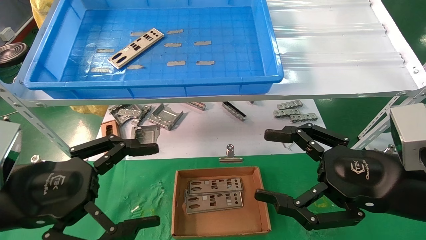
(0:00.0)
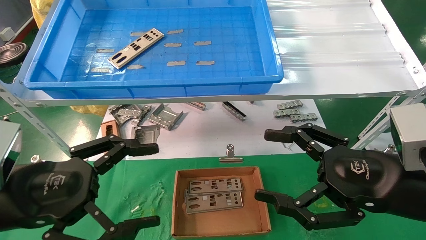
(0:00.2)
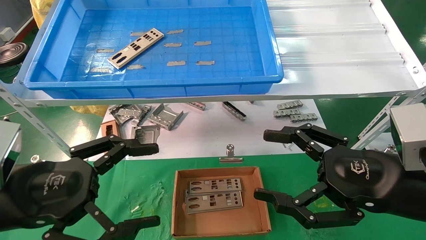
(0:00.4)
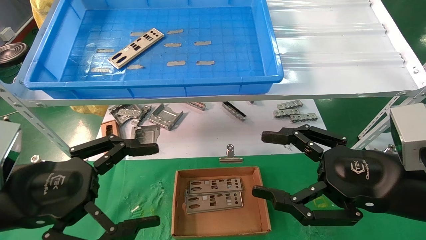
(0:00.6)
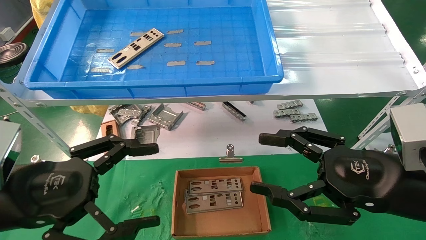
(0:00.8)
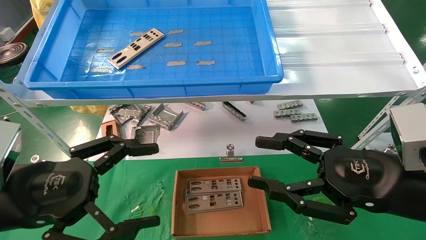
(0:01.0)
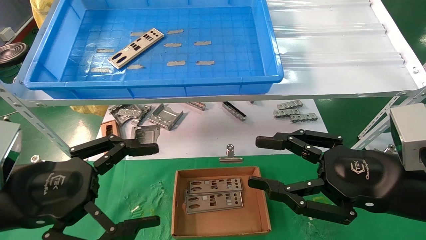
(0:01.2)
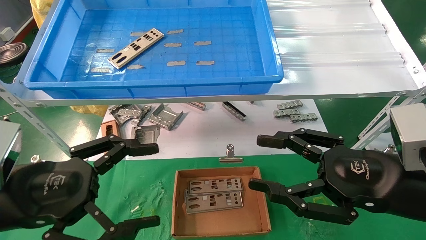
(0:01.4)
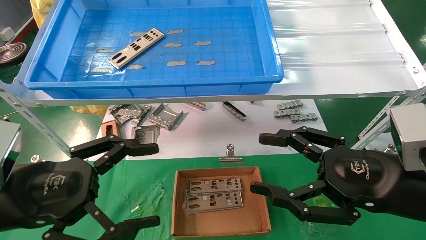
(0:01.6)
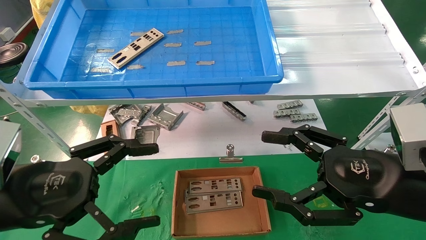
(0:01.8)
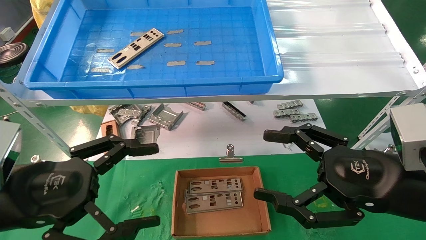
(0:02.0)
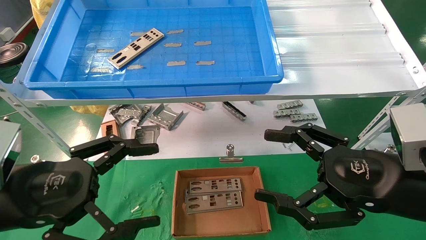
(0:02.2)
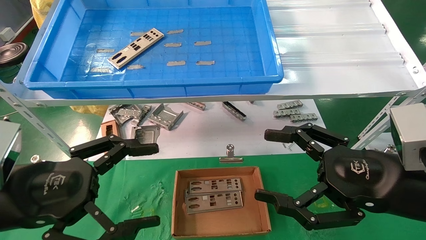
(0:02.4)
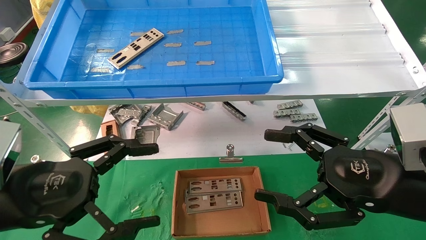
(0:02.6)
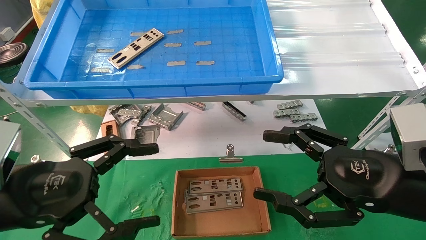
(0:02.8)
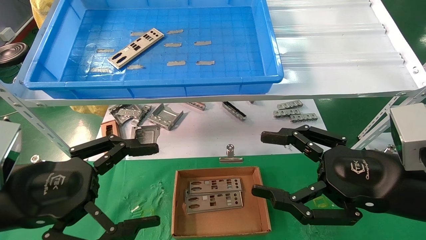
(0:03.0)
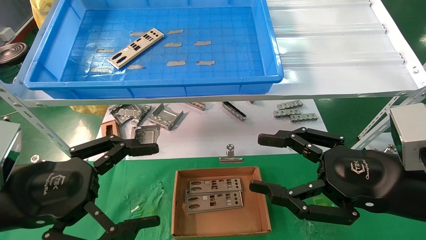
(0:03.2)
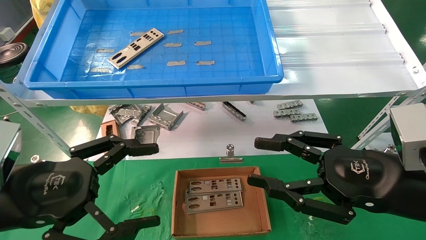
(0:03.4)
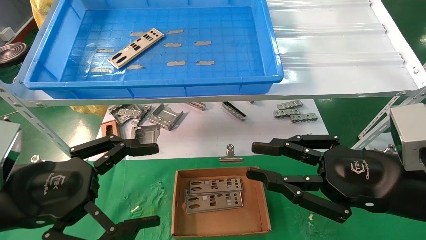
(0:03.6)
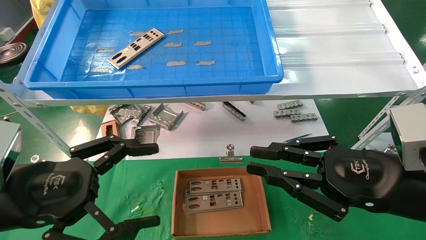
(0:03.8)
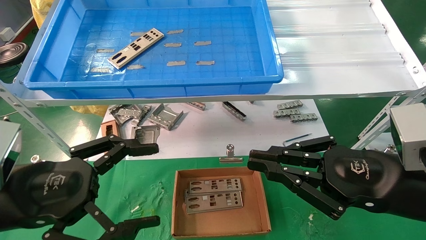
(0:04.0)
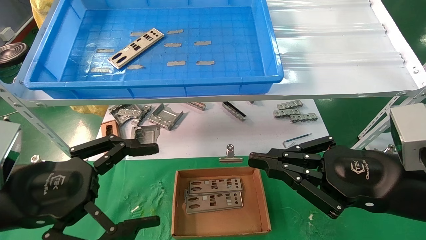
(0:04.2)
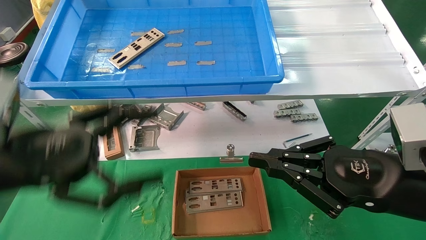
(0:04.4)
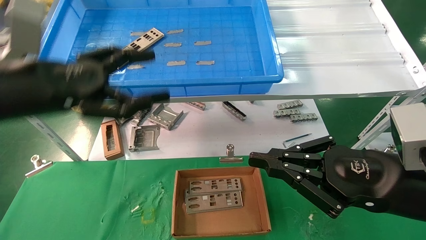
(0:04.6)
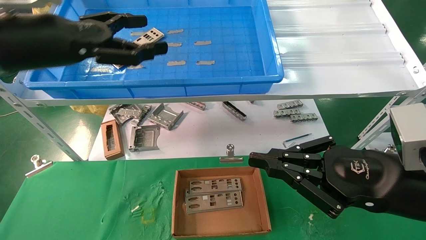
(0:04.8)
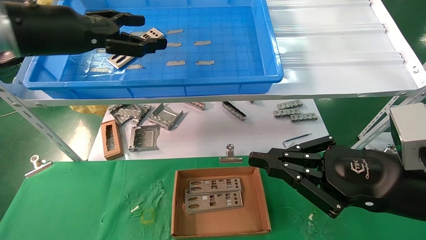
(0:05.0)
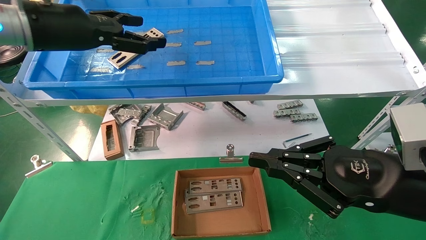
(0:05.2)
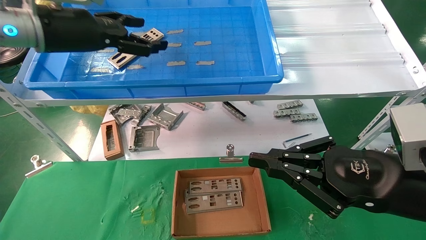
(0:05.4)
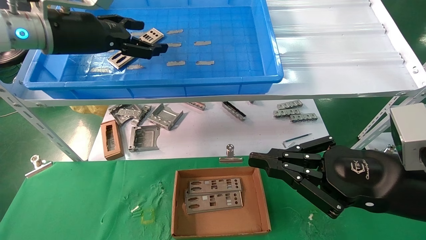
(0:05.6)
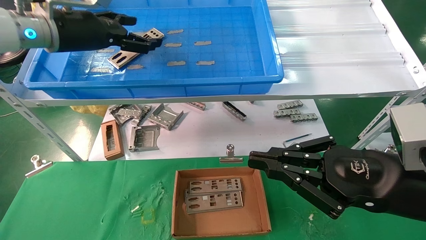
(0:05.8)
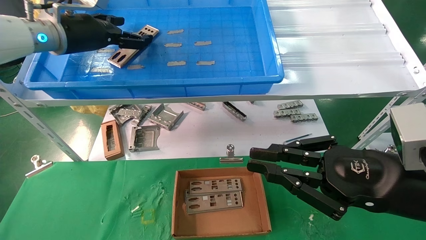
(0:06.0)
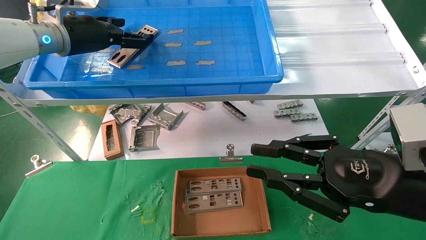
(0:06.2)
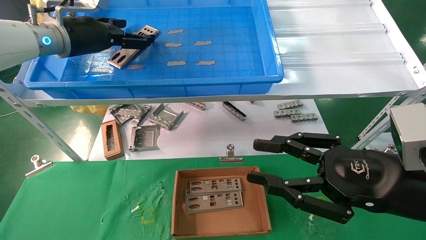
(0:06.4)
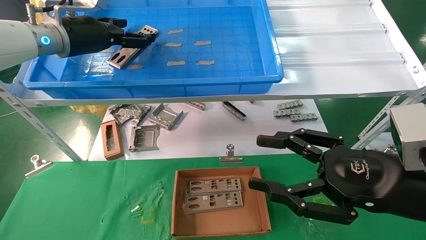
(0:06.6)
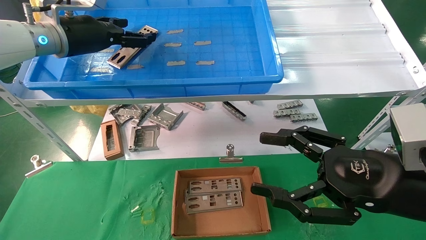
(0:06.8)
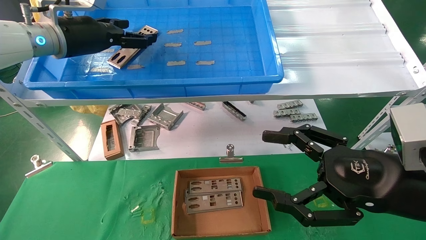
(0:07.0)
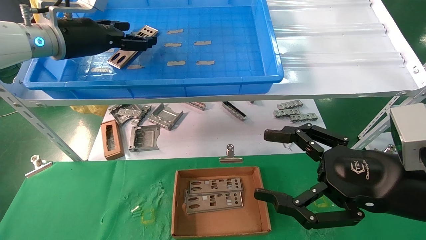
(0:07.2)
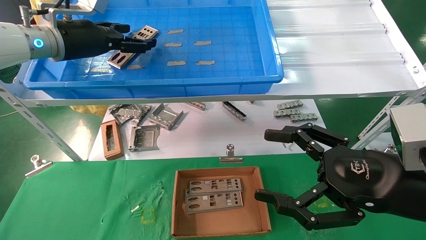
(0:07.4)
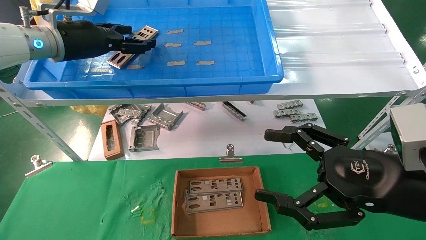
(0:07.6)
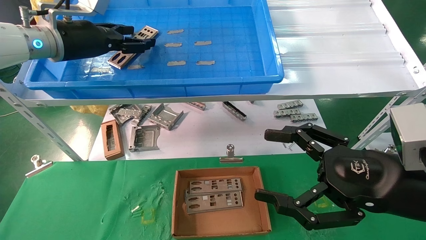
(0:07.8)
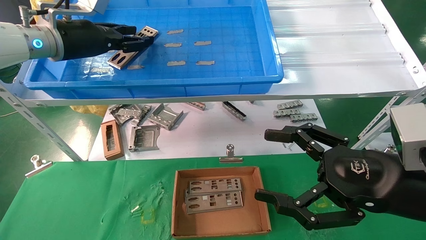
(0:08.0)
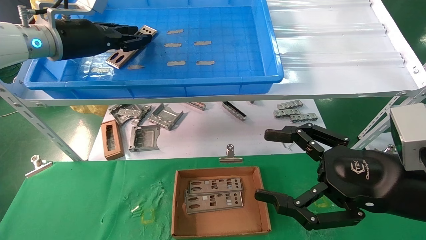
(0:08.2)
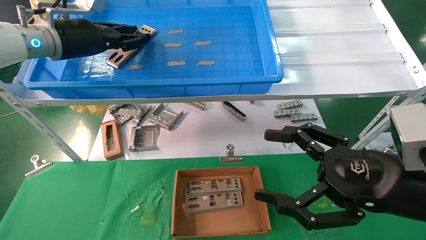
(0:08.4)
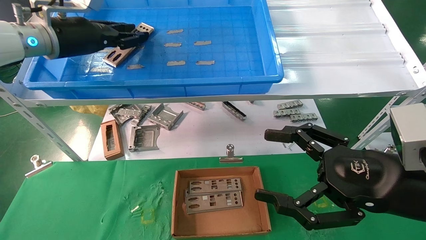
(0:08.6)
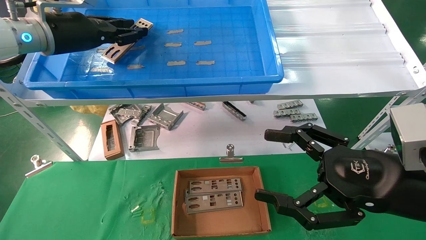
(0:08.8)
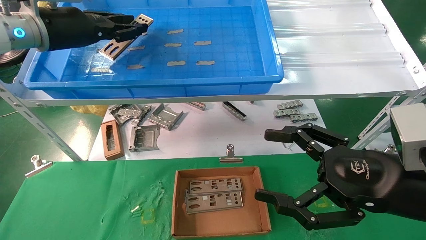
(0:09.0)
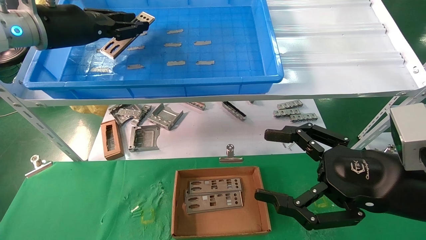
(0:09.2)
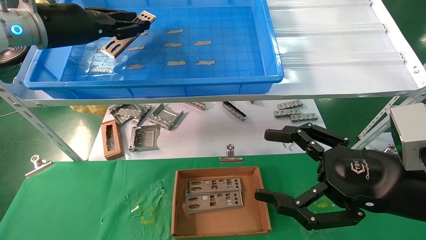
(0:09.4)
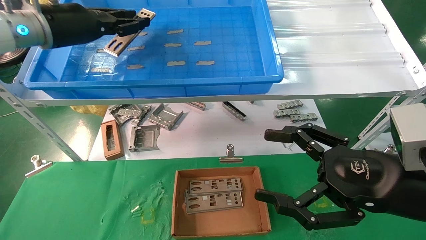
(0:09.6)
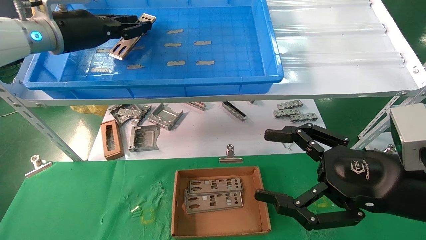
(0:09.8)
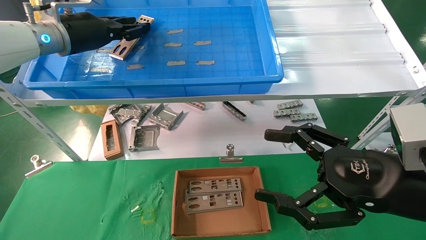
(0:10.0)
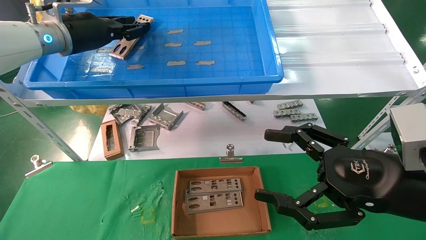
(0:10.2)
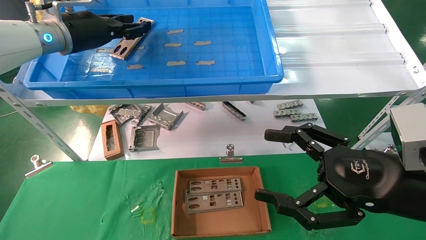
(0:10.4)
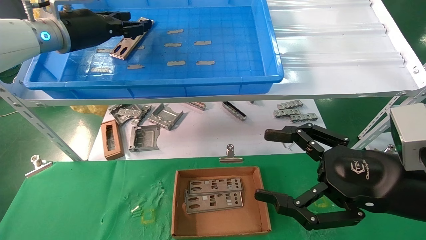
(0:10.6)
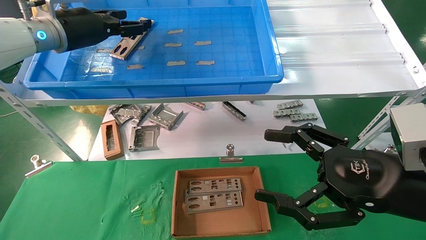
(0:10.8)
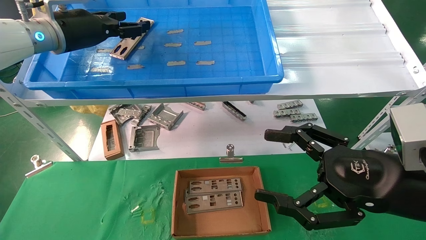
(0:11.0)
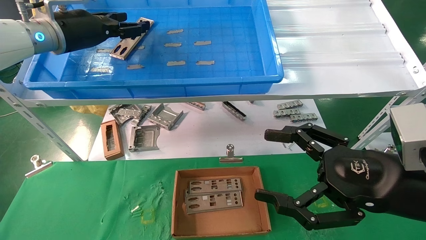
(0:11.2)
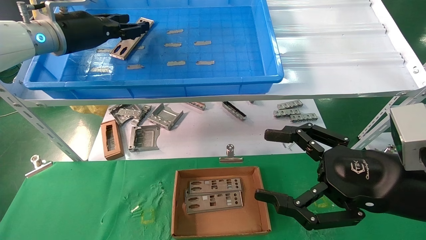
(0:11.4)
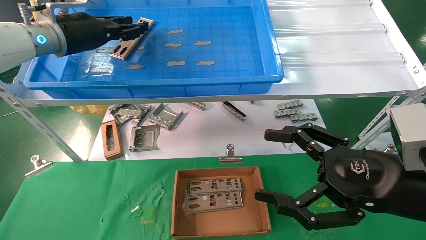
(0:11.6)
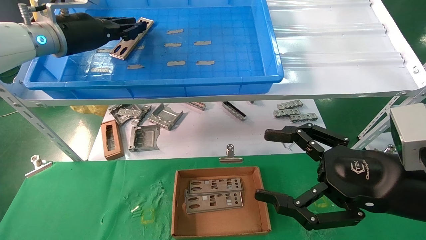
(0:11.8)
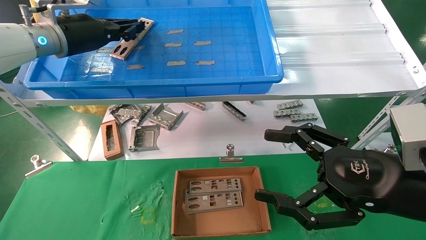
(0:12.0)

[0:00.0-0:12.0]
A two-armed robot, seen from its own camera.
Task of the whole recording: pick up the parts on the tray and put them in the cardboard box.
0:00.0 to 0:03.0: The two grippers keep their place.
0:03.0 to 0:04.4: The left gripper heads upward, covering roughly 5 cm. Meanwhile the right gripper closes up.
0:04.4 to 0:06.0: The left gripper is displaced forward and upward by some 25 cm.
0:06.0 to 0:07.6: The right gripper opens up.
0:07.6 to 0:09.0: The left gripper closes.
0:09.0 to 0:10.4: The grippers stay close to where they were, moving slightly.
0:10.4 to 0:12.0: The left gripper opens, then closes again.

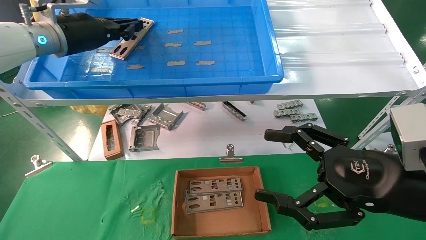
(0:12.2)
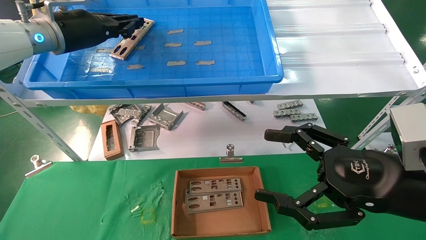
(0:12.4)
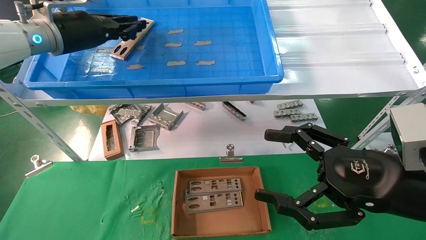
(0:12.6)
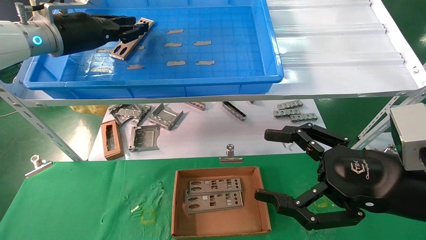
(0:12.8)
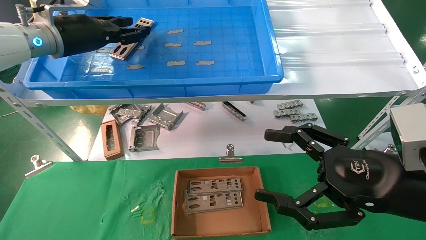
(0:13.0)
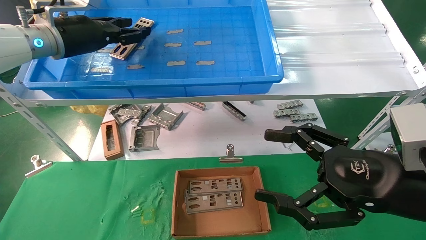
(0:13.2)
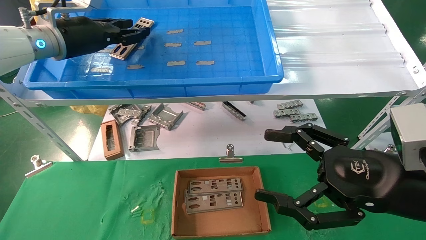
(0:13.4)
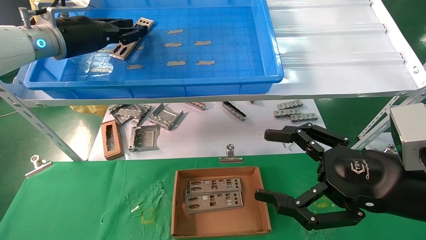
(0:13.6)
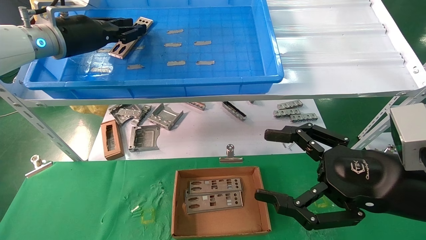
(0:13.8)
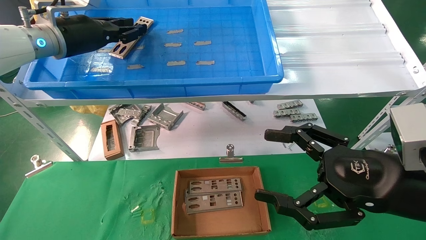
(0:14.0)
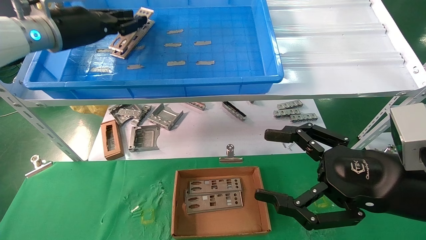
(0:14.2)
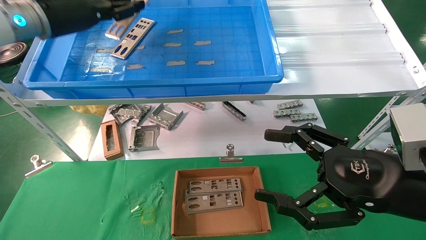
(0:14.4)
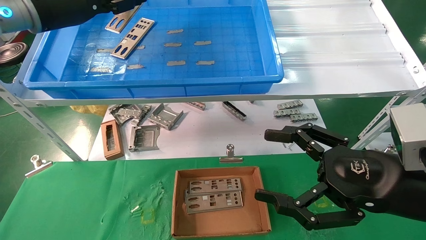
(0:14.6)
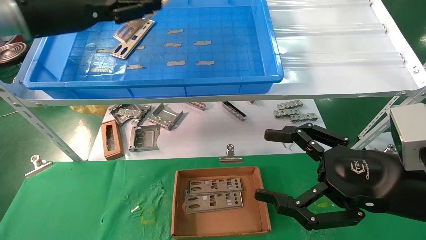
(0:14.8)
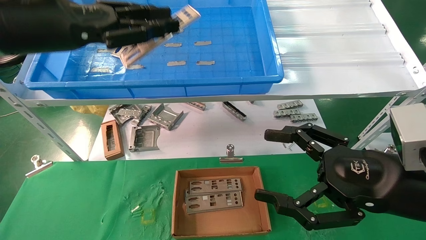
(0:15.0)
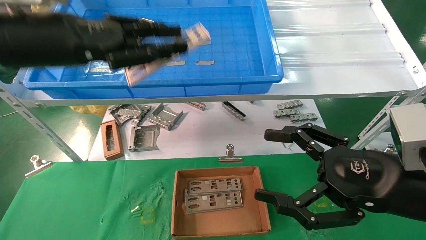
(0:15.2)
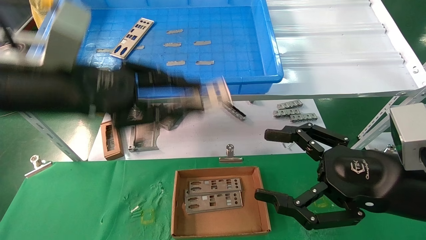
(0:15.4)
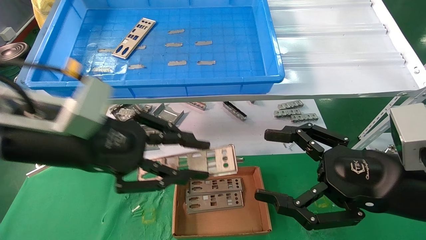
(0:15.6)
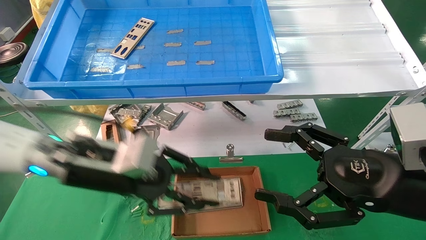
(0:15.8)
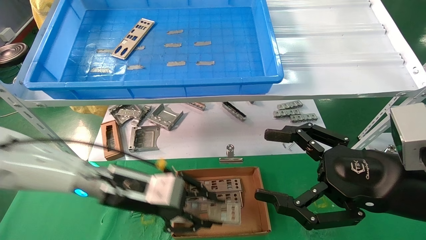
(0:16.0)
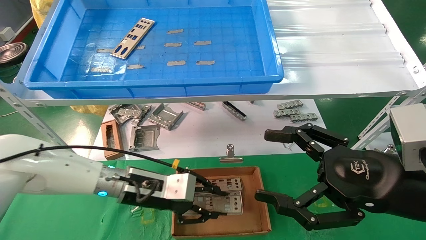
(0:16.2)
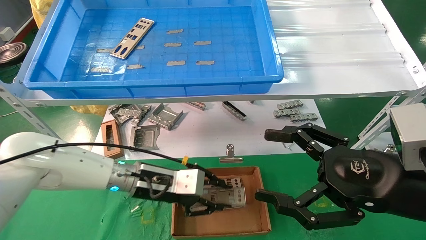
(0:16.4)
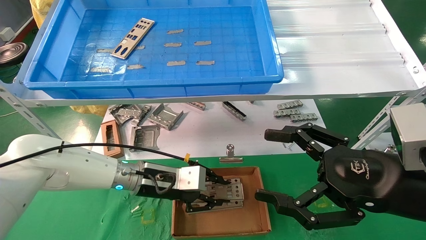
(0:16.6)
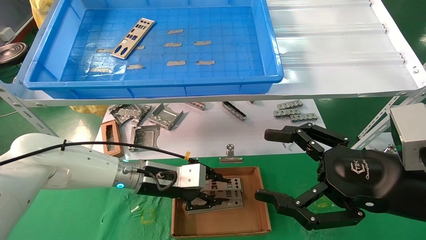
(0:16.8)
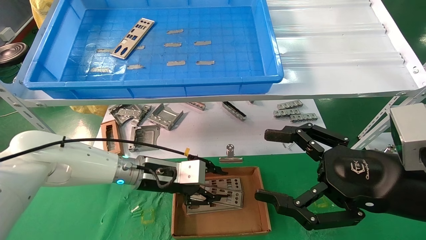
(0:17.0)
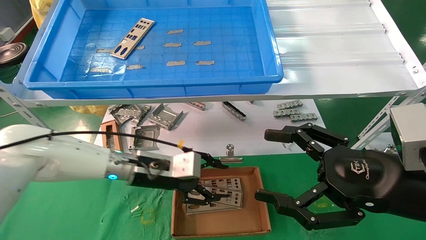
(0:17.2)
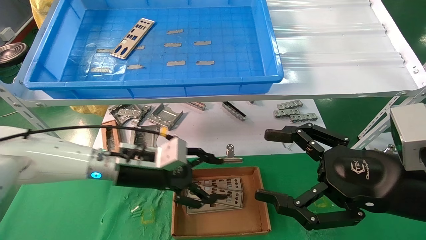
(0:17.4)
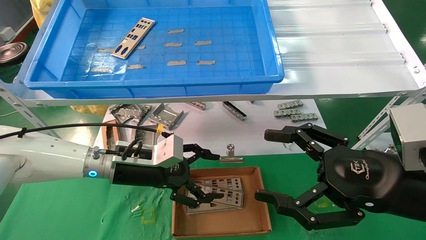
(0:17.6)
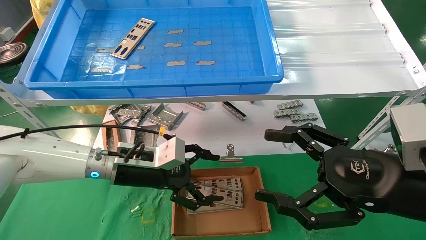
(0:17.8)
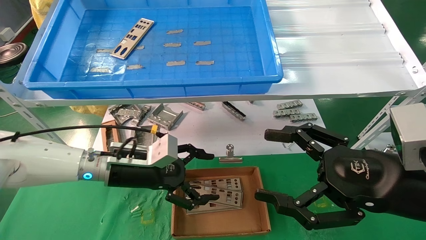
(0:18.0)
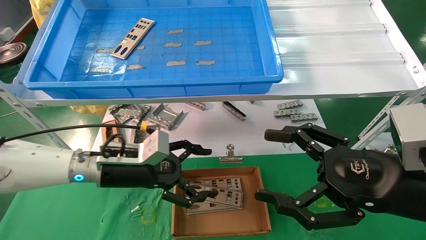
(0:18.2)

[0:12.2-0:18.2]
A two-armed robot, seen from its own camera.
Task of the whole recording: pick up the parts on the tray and put them in the cardboard box.
Step, 0:14.2 to 0:16.8: Place the IO bracket into the ingredient slot.
0:12.2 to 0:13.8: The two grippers keep their place.
0:13.8 to 0:15.2: The left gripper shifts roughly 15 cm backward.
0:15.2 to 0:16.6: The left gripper is displaced downward and to the right by about 30 cm.
0:16.6 to 0:18.2: The left gripper ends up about 5 cm from where it was, and opens its fingers.
